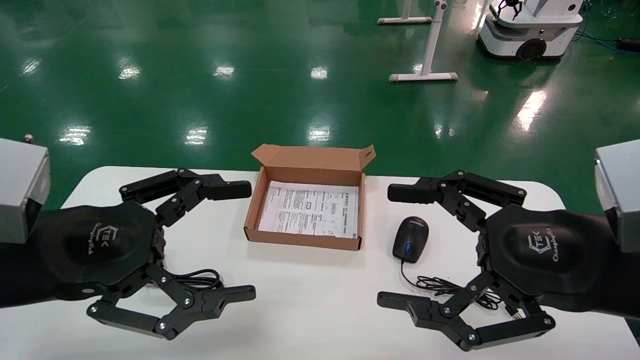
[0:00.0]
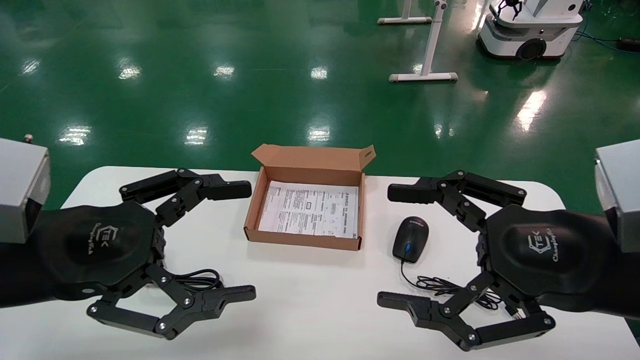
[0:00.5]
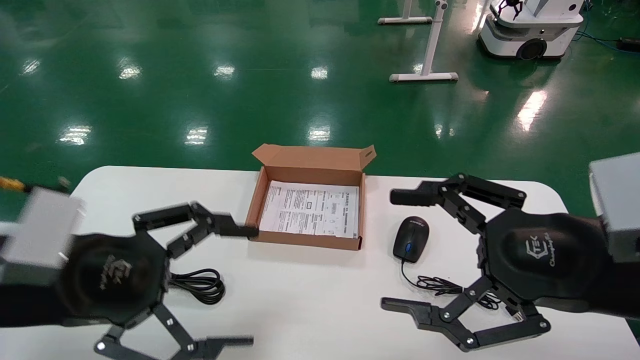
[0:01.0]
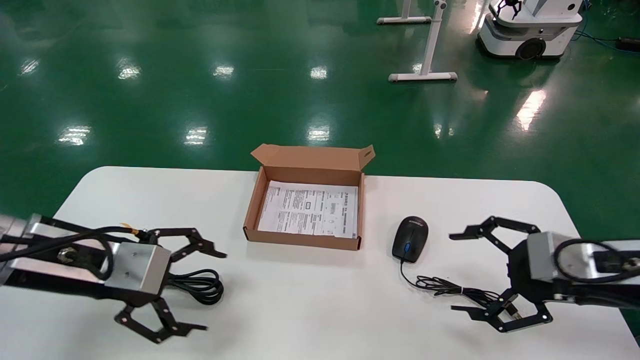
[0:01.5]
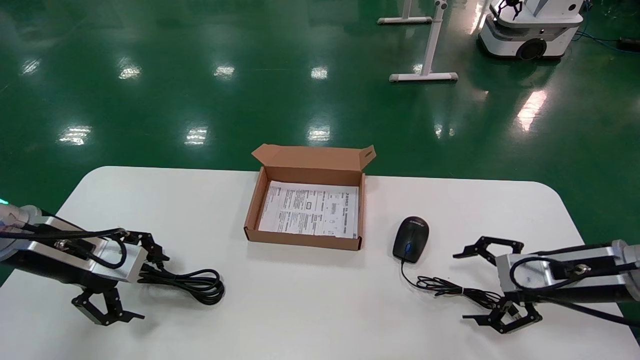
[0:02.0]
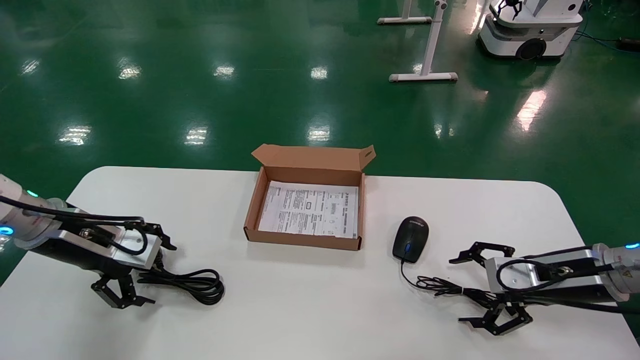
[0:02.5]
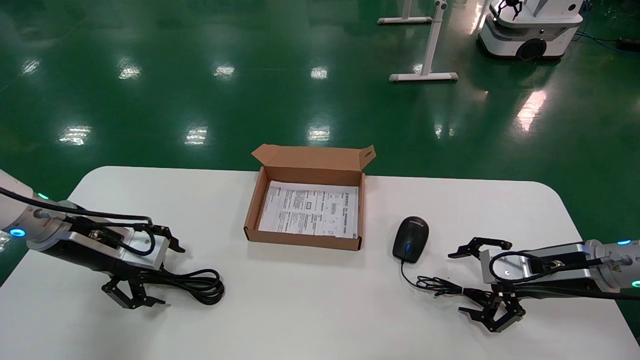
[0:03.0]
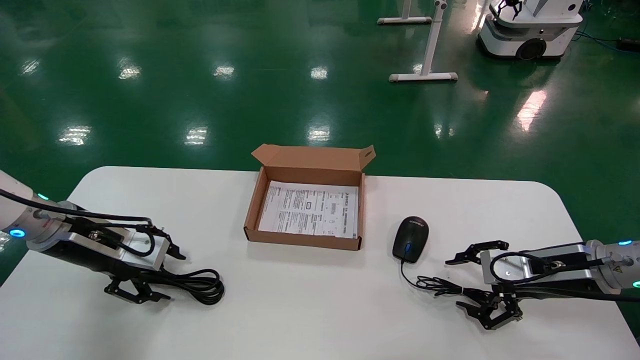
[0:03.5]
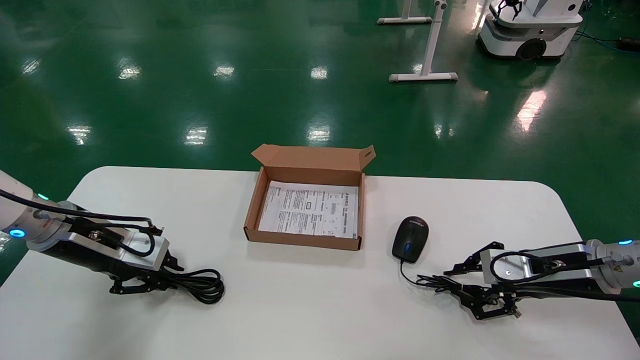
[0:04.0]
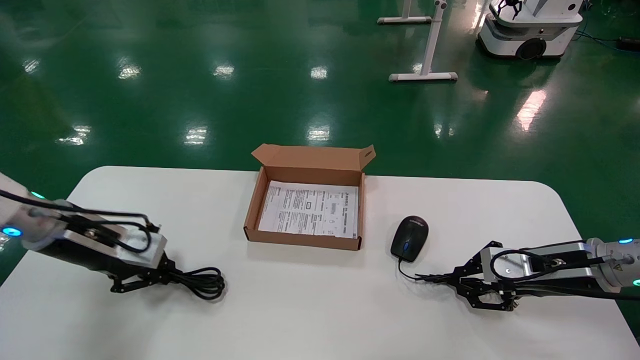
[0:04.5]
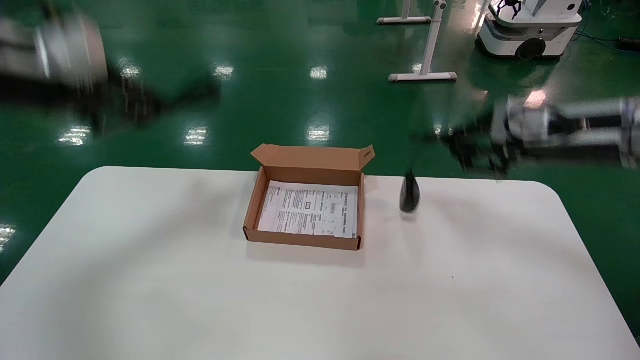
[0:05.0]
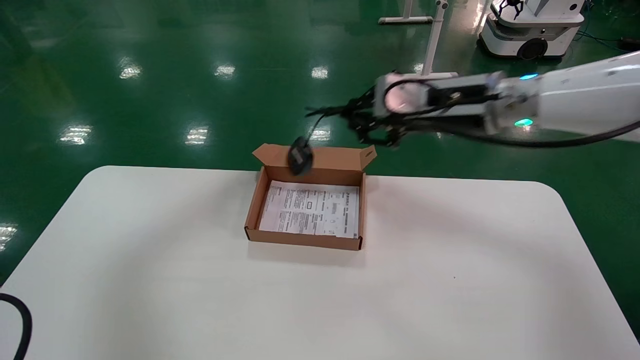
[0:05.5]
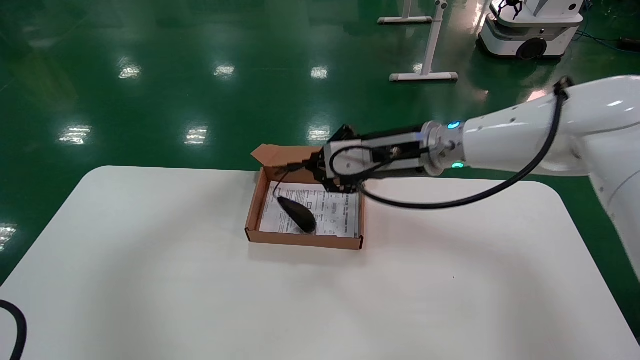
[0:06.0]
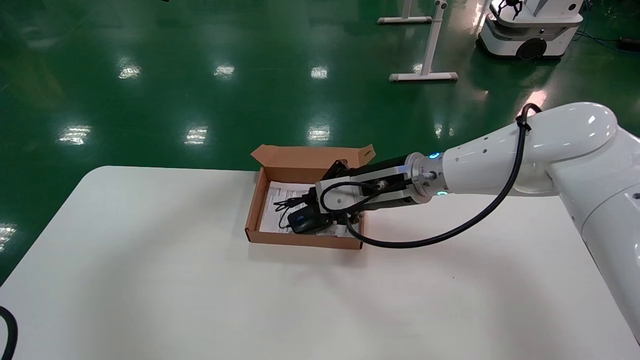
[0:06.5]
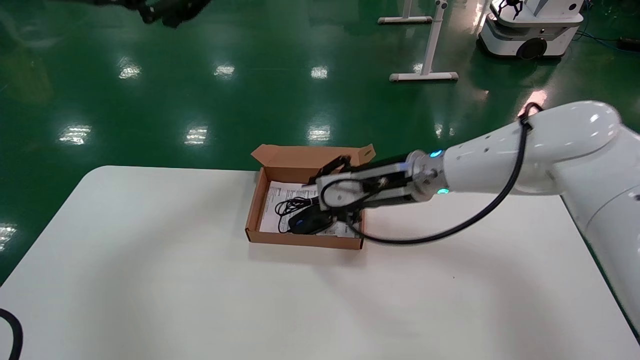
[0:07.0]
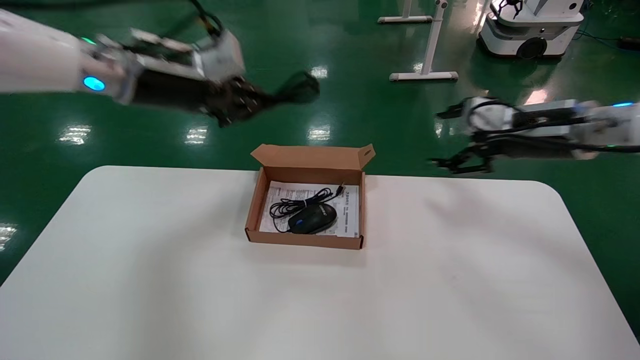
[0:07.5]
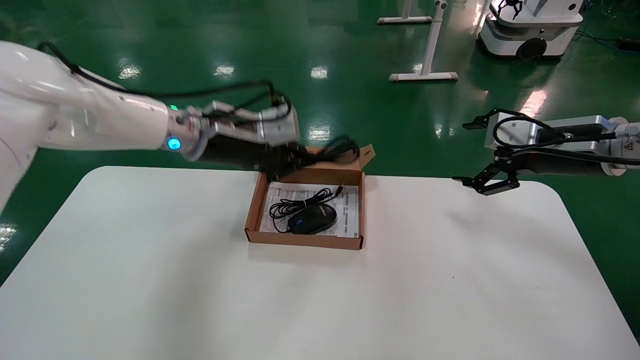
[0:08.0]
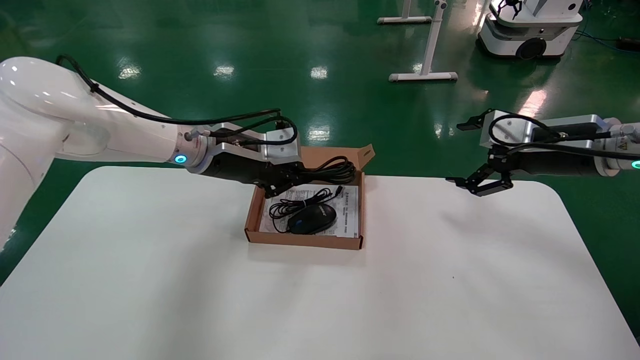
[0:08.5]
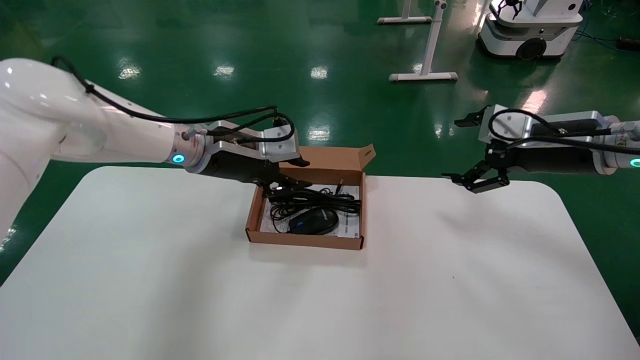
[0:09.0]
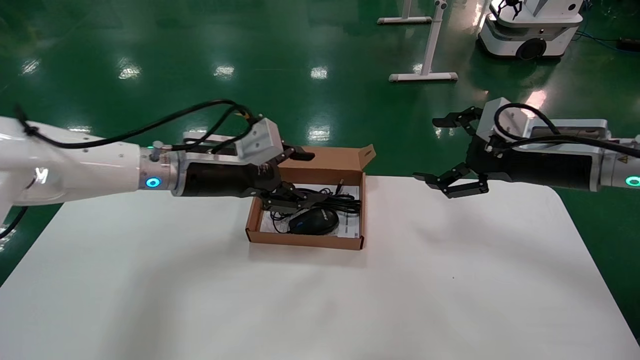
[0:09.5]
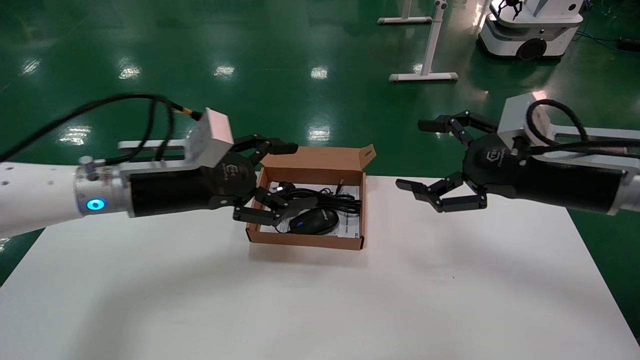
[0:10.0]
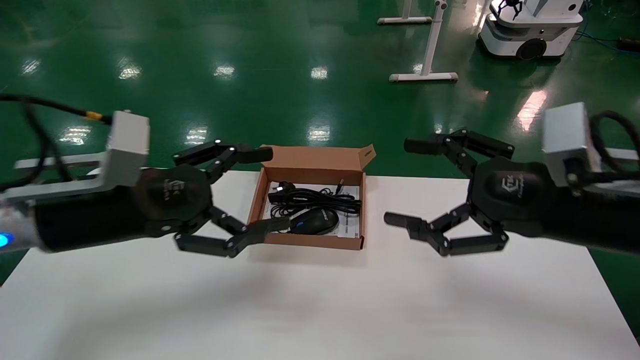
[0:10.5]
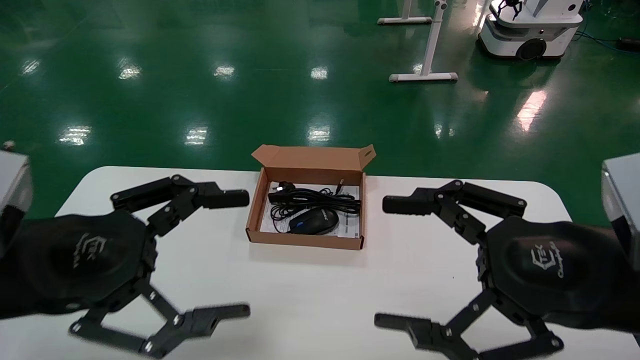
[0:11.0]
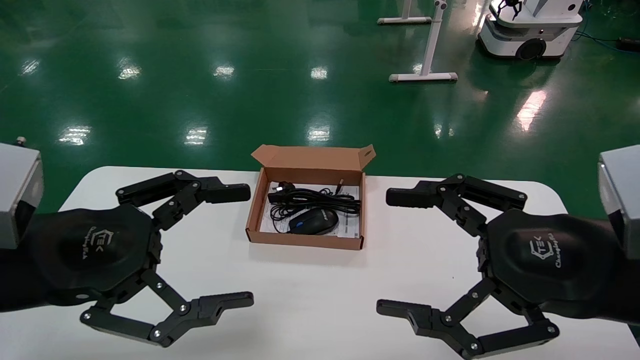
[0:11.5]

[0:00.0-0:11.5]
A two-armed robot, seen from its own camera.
Step, 0:01.5 to 0:04.0: Grab and lift both the mouse and power cord from the accessory packaging area at the same time.
Step, 0:04.5 to 0:08.5: Place the mouse and power cord into the box.
0:00.0 to 0:02.0: The right gripper travels forward, downward and to the right by some 20 cm; the left gripper heads forward and to the left, covering approximately 15 cm.
0:02.0 to 0:04.0: The right gripper closes up. The left gripper closes its fingers.
0:04.0 to 0:06.0: The left gripper shifts about 35 cm upward, while the right gripper heads to the left and upward, covering approximately 25 cm.
0:06.0 to 0:07.5: The right gripper travels to the right by roughly 15 cm, and opens. Meanwhile the left gripper travels downward, forward and to the right by approximately 15 cm.
0:07.5 to 0:09.5: The right gripper opens up, while the left gripper shifts roughly 15 cm downward, and opens its fingers.
0:09.5 to 0:11.5: Both grippers travel together backward, approximately 20 cm. The left gripper opens its fingers.

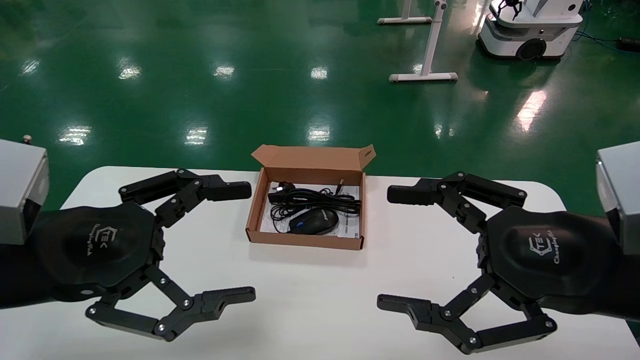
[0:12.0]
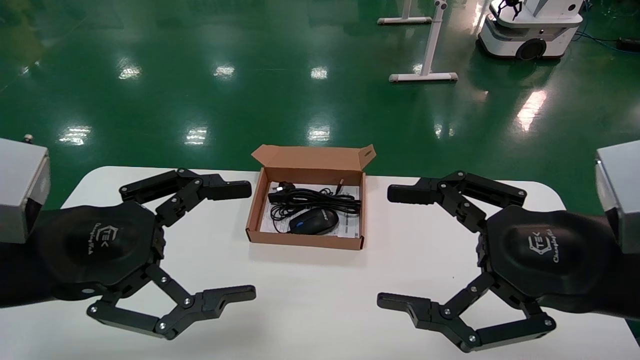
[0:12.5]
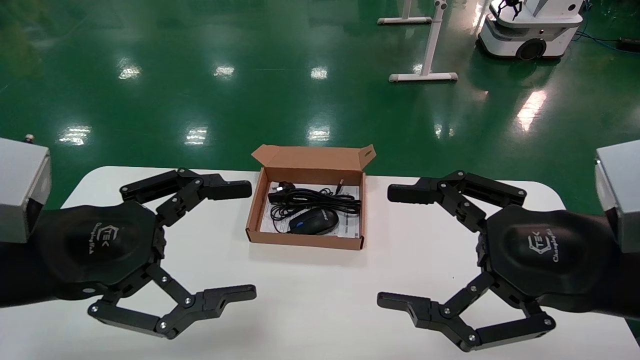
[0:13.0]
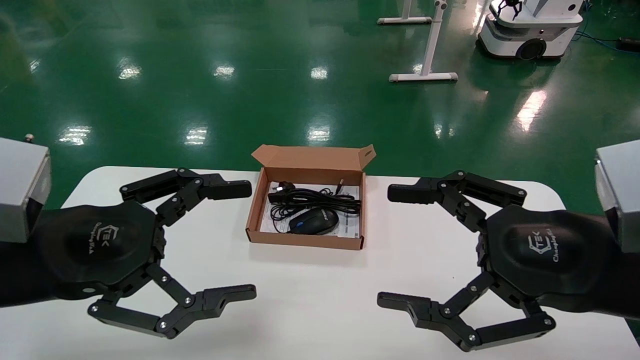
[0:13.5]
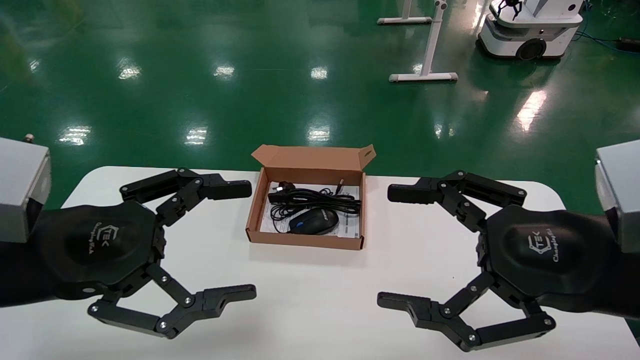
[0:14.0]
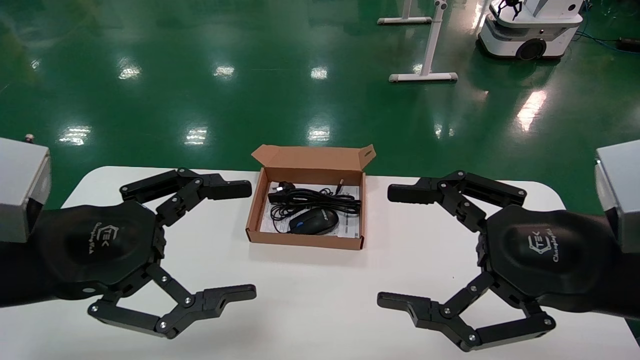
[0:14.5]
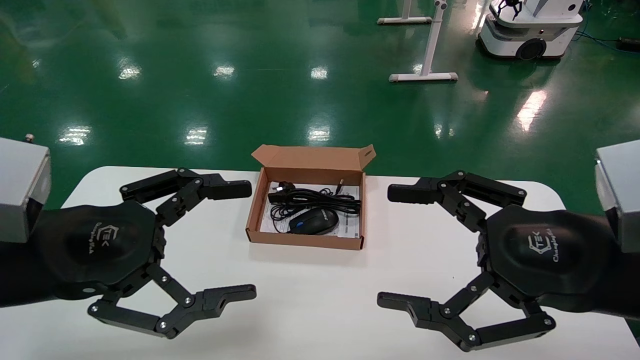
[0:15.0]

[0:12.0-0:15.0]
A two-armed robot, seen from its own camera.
0:12.0 to 0:15.0: Both grippers stay about where they are.
